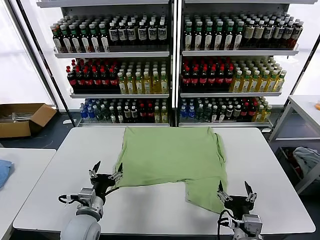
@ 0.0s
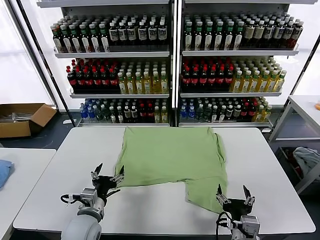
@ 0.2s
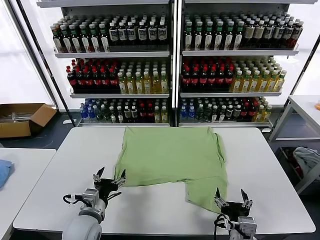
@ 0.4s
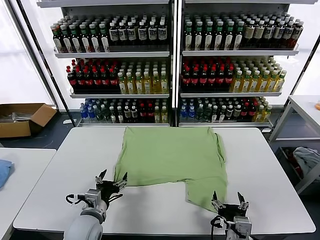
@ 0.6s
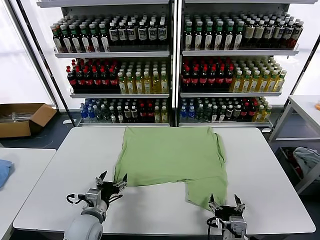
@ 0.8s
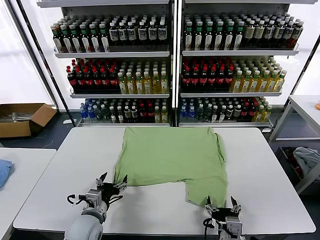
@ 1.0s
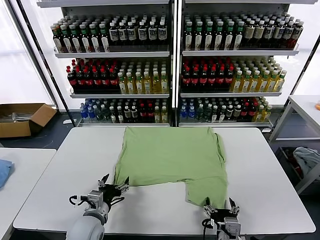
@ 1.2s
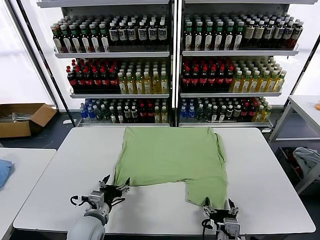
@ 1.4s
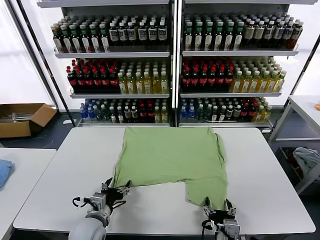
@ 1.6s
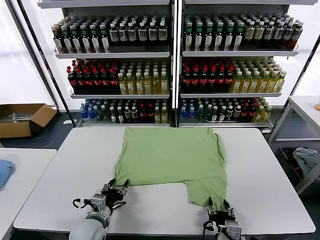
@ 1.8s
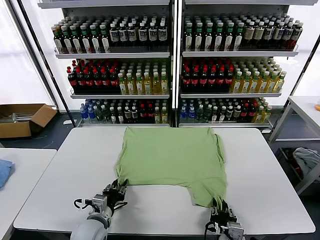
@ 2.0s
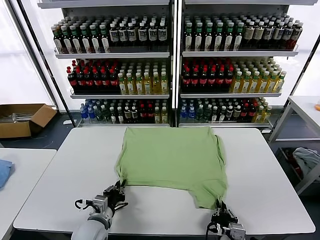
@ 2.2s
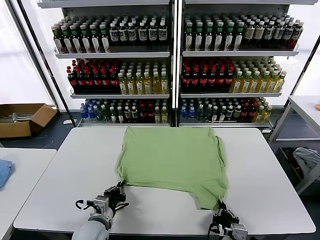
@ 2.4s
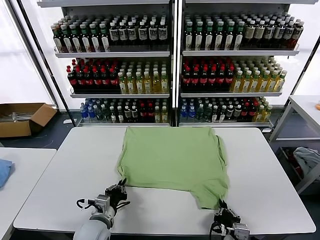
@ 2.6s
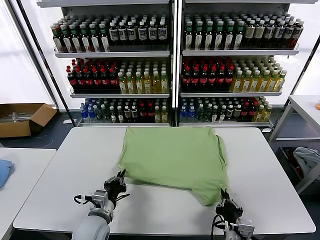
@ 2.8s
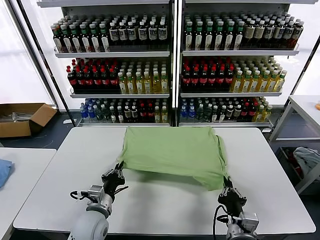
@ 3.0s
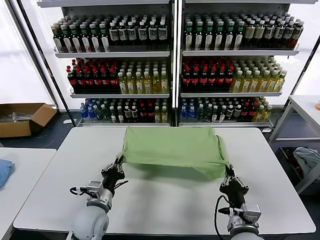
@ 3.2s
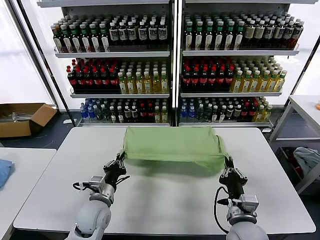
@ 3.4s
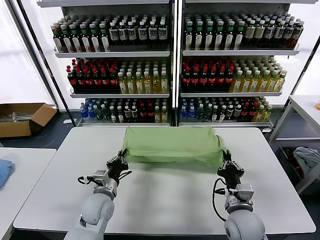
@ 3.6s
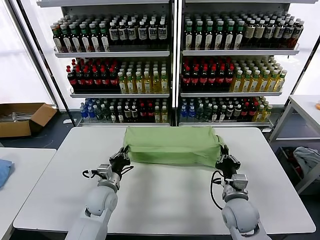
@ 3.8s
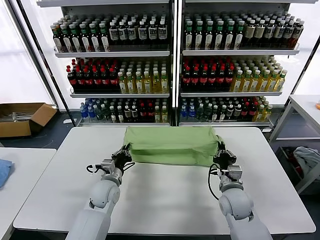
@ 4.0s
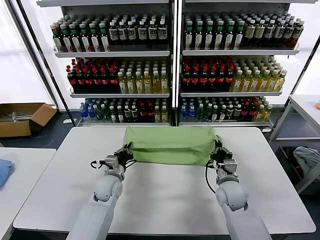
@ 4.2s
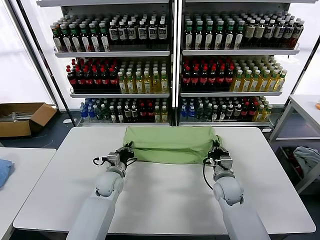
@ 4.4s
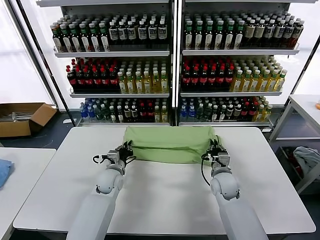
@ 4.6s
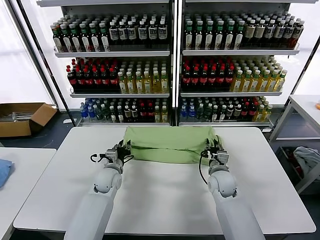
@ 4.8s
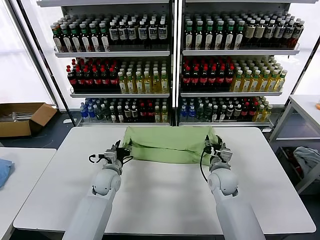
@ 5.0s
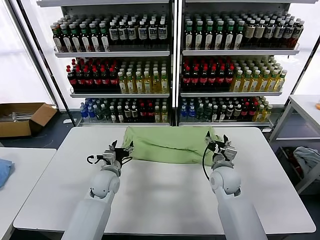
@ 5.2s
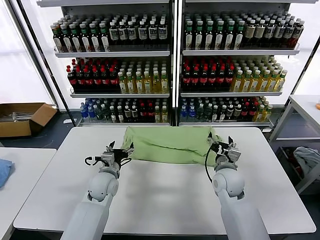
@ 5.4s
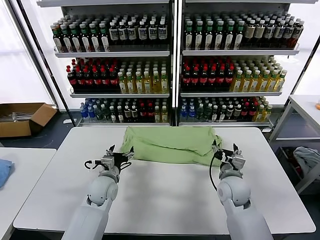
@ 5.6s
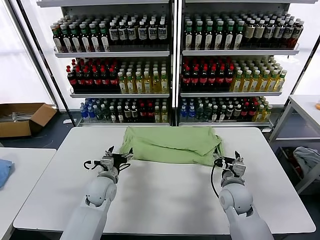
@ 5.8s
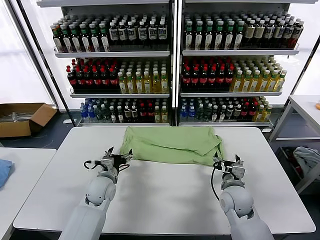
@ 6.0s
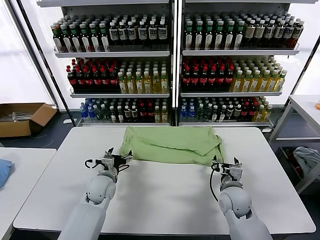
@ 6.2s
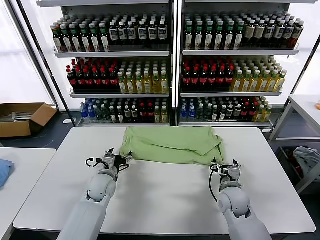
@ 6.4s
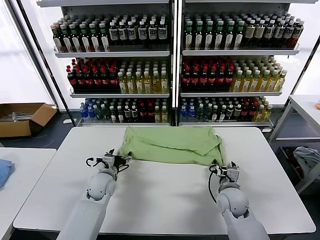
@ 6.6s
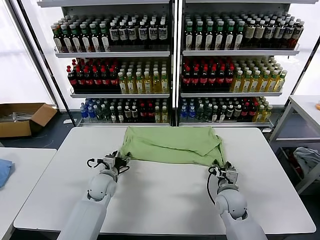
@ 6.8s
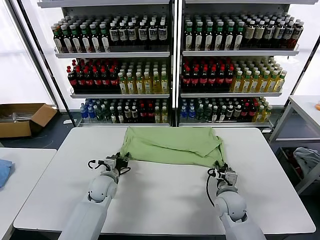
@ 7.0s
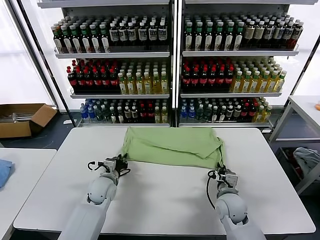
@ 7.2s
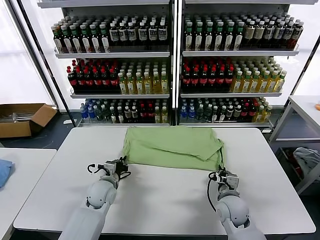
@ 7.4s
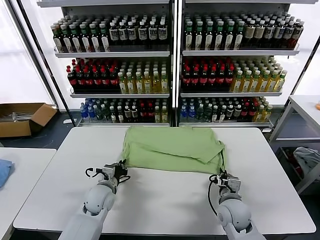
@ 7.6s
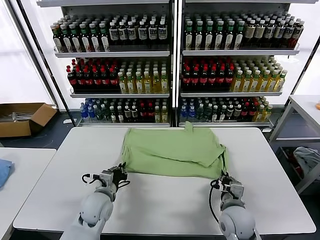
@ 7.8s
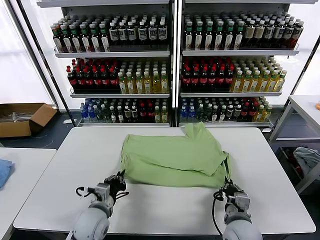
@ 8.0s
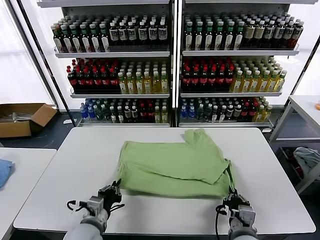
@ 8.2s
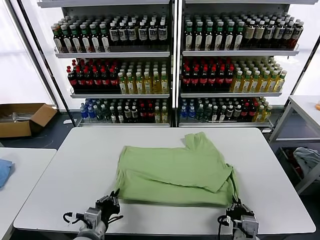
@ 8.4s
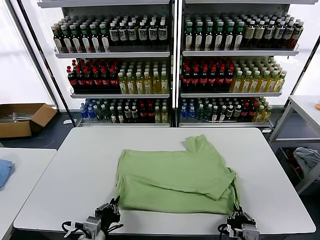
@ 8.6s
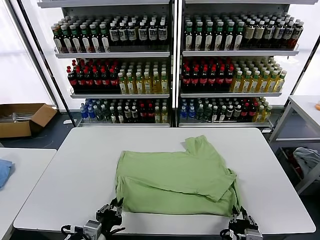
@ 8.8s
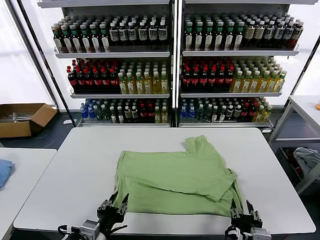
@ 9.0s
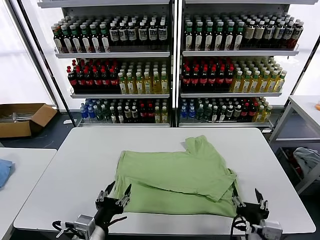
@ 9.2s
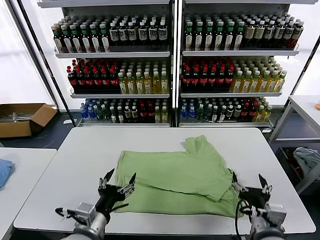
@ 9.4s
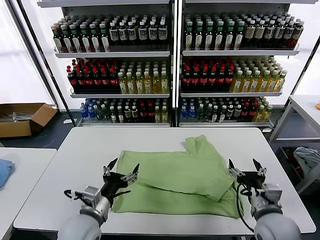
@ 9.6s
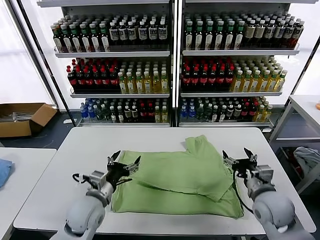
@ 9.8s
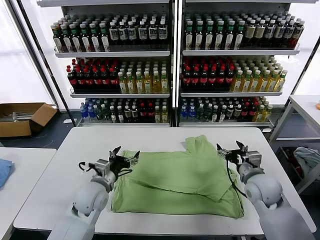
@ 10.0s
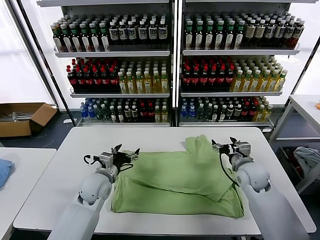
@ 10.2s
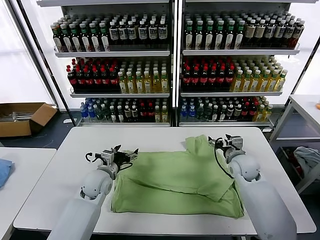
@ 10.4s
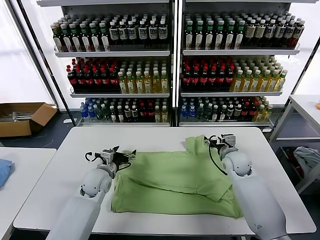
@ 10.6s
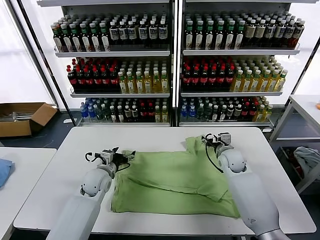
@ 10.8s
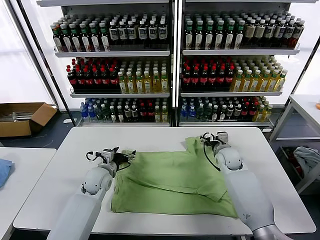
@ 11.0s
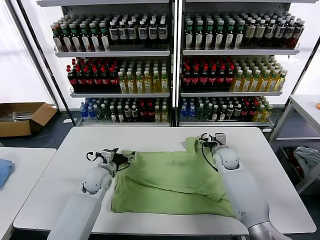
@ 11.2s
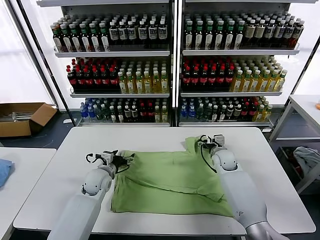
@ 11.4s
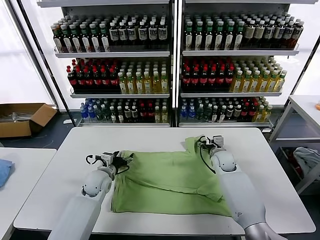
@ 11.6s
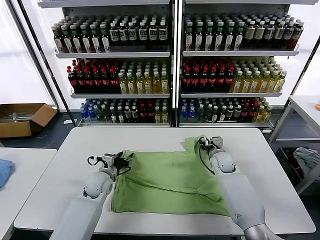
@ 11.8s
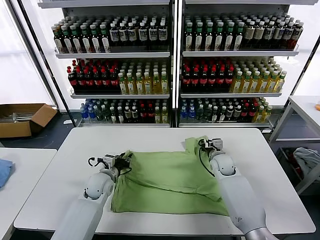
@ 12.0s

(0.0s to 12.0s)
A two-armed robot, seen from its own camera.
Task of the whole recording: fold and organize the clothes.
Step, 0.0s - 2.4s: use both grippers simultaneously to clamp the lower edge of the clothing fabric.
Step, 2.6s - 4.8s: use both grippers to drag the lower edge of the fabric forward and fold it over the upper edge.
Step, 5.2s - 8.8s: Drag the clothes downward with both gripper.
1.6s - 3.0s: The left gripper closes up, while the right gripper goes about 5 cm upward, and closes up.
3.0s - 4.4s: The two grippers go roughly 20 cm forward.
4.4s - 6.0s: The left gripper ends up some 5 cm from where it was, and opens. The right gripper moves backward, some 5 cm, and opens.
6.0s - 7.6s: The left gripper closes its fingers. Meanwhile the right gripper is displaced backward by roughly 5 cm, and closes up.
7.6s - 9.0s: The left gripper is displaced backward by approximately 20 cm, and opens up. Meanwhile the right gripper goes some 20 cm backward and upward, and opens its fingers.
9.0s - 10.4s: Both grippers travel together forward, about 30 cm. The left gripper opens.
10.4s - 12.0s: The right gripper is displaced downward by some 5 cm, and closes its fingers. The left gripper closes its fingers.

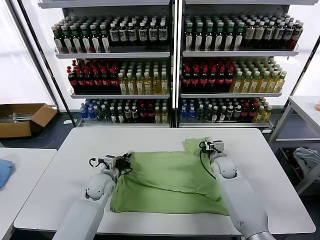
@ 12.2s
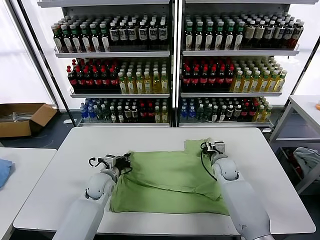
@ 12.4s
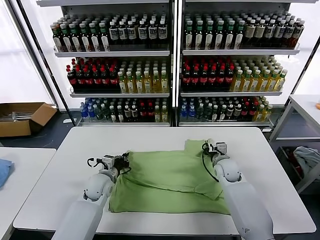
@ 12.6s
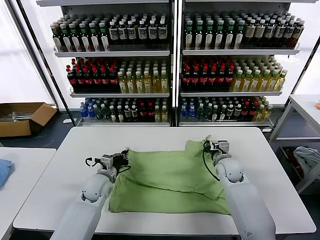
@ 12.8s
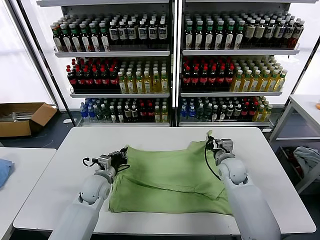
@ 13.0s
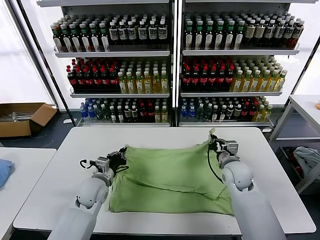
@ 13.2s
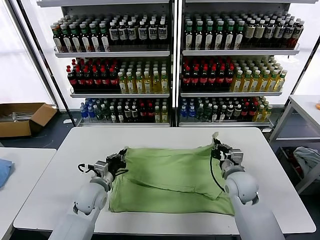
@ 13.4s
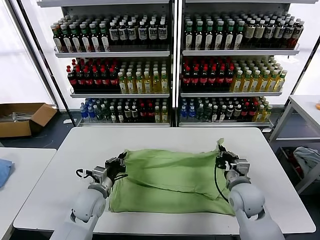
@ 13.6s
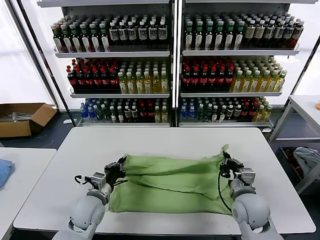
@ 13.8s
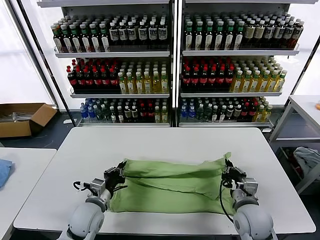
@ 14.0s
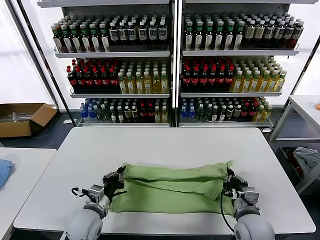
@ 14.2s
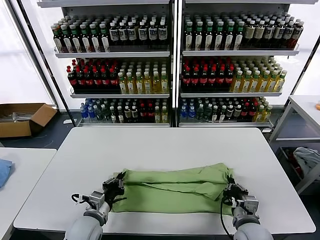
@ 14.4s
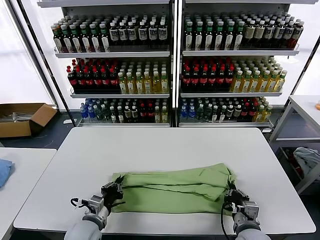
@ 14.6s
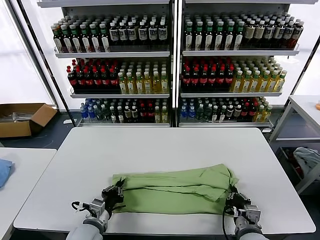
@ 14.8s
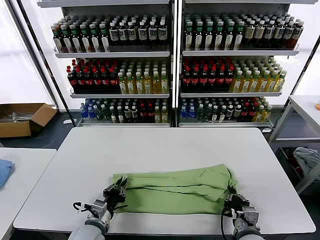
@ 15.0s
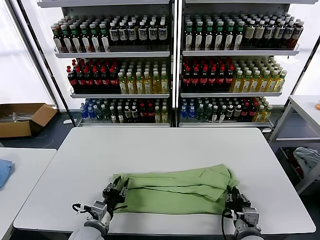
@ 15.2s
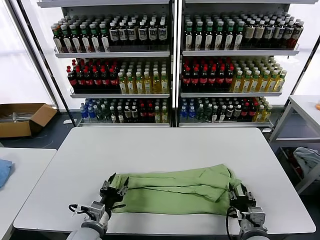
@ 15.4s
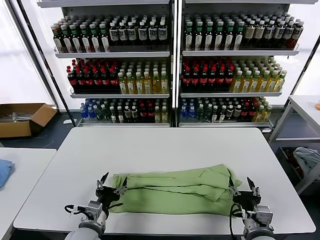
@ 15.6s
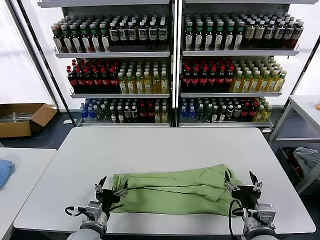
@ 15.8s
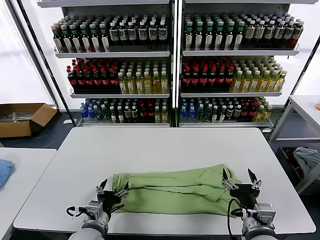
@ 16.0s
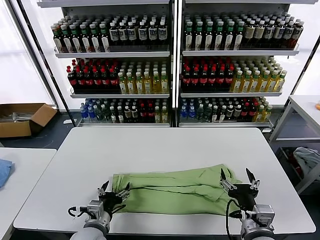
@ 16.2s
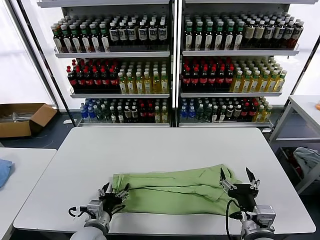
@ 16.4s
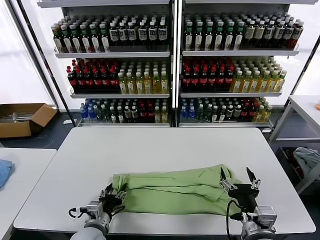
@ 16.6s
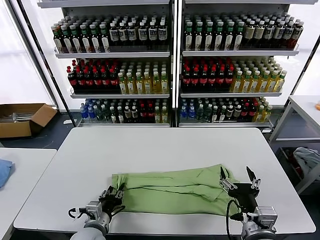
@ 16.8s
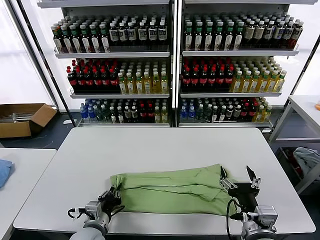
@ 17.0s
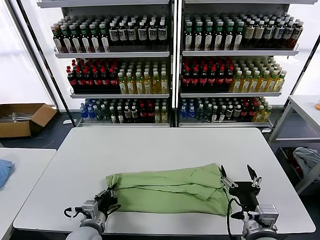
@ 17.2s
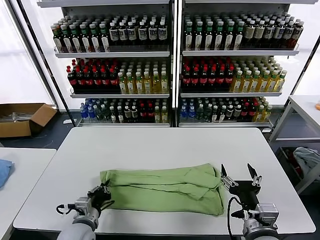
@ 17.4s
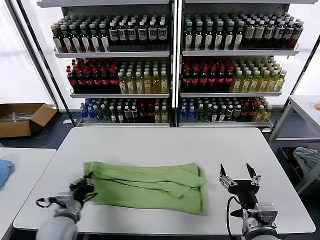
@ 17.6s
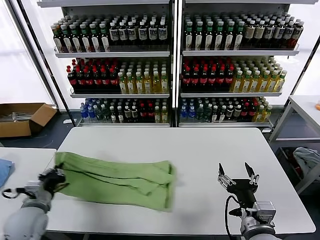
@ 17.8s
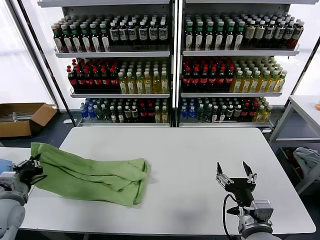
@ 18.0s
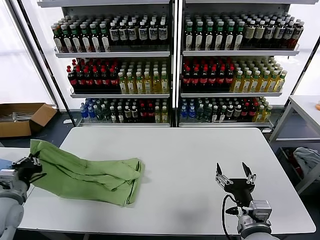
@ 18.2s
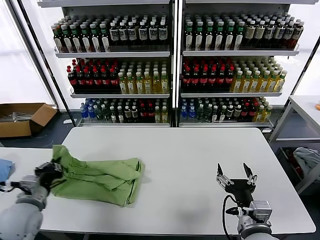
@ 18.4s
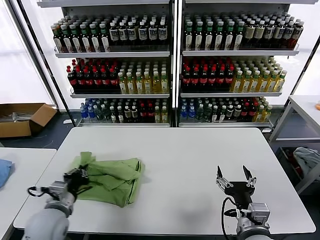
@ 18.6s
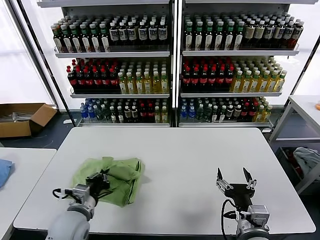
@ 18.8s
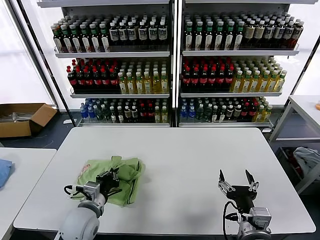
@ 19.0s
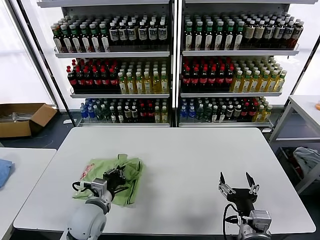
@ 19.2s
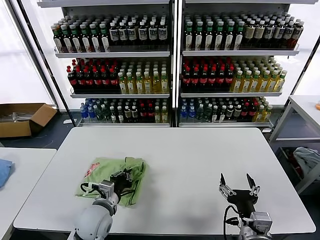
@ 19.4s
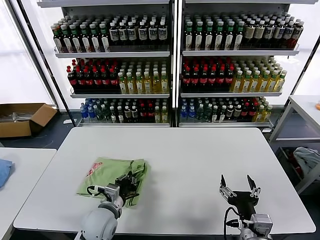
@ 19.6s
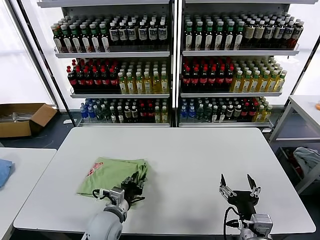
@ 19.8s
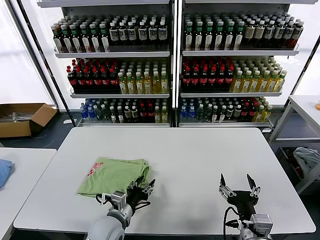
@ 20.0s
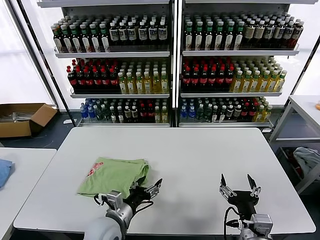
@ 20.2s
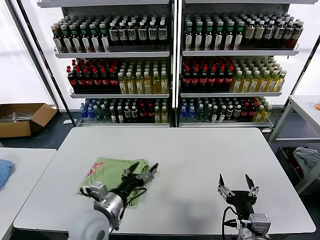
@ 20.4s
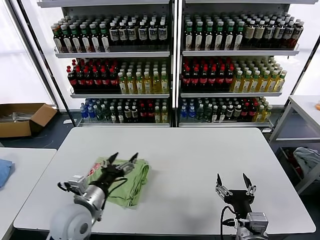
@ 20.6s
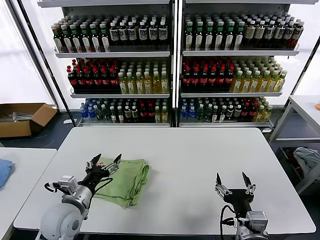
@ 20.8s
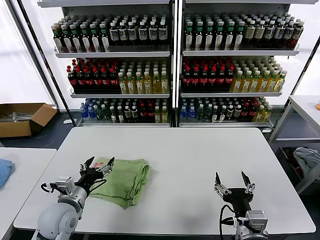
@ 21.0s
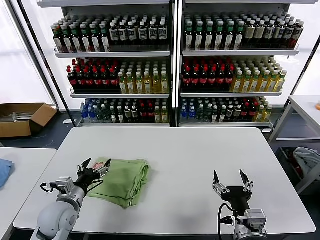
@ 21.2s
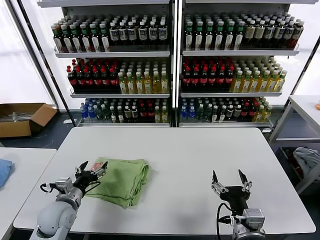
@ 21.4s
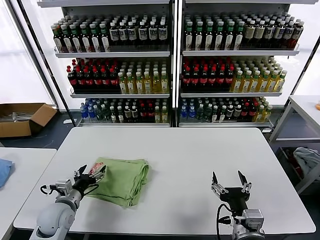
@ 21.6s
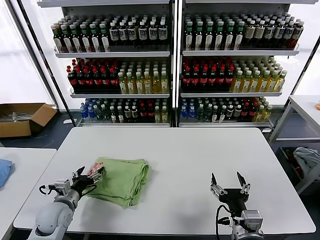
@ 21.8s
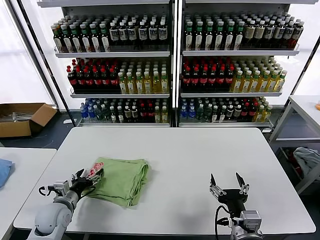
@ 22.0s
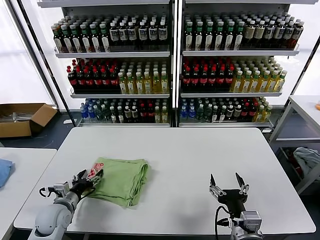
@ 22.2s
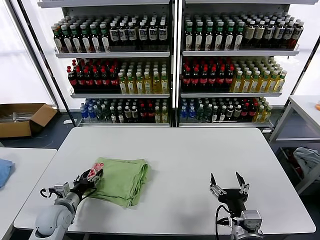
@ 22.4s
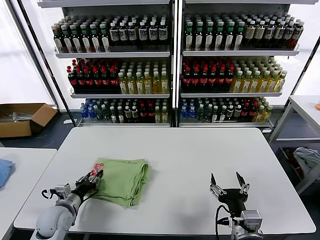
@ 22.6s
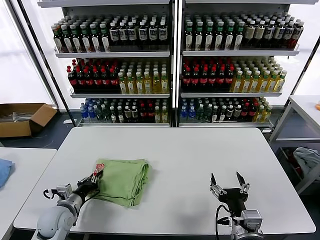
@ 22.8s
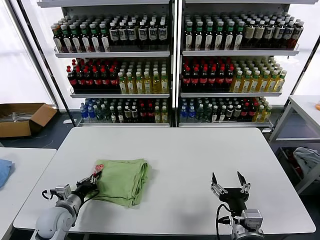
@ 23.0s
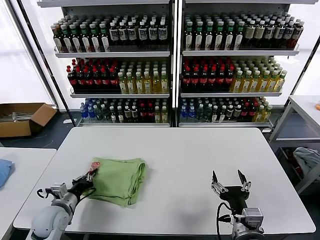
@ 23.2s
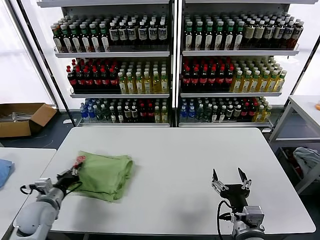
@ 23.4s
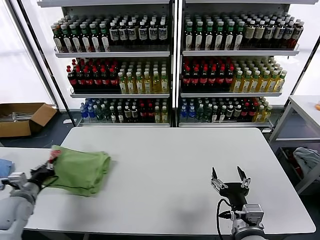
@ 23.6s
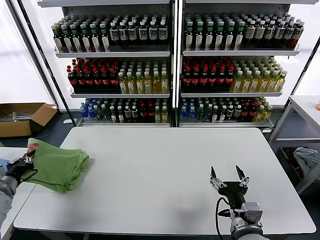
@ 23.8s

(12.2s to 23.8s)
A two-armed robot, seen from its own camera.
Task of the whole recording: fold and organize the clothes.
Step, 12.4s - 15.4s: use both grippers to drag the upper edge of the fabric backward and fold it over the lower edge.
Step, 15.6s - 17.0s: use the left gripper to clamp the left edge of the fabric.
Step, 17.2s - 20.0s: use the left gripper to drag the left edge of the fabric to the left and folds it over the right edge.
12.2s - 13.6s: The right gripper heads backward and upward, covering some 20 cm, while the left gripper shifts roughly 10 cm backward.
13.6s - 15.0s: The left gripper shifts roughly 10 cm backward. Meanwhile the right gripper is displaced backward and downward by about 15 cm.
15.0s - 16.6s: The right gripper travels upward by approximately 10 cm, and opens; the left gripper opens its fingers.
16.6s - 18.0s: The left gripper goes about 25 cm to the left and upward, and closes.
18.0s - 19.4s: The left gripper moves to the right, about 25 cm.
19.4s - 21.0s: The left gripper travels to the left by roughly 10 cm, and opens.
21.0s - 22.4s: The left gripper heads downward and to the left, covering roughly 10 cm.
22.4s - 23.8s: The left gripper goes approximately 20 cm to the left and upward, and closes.
